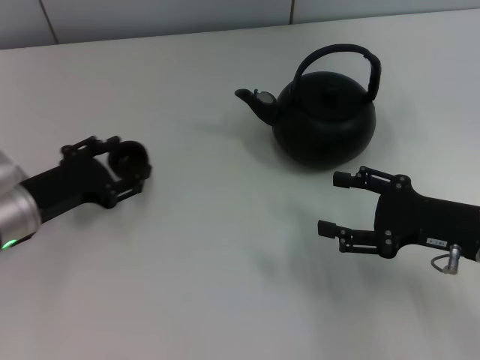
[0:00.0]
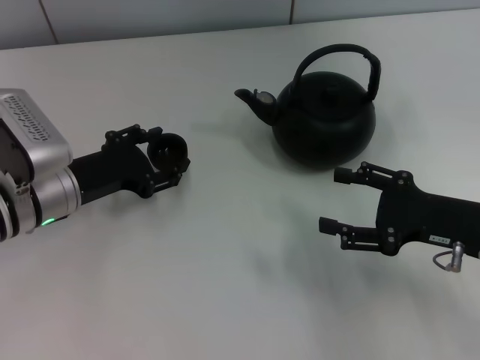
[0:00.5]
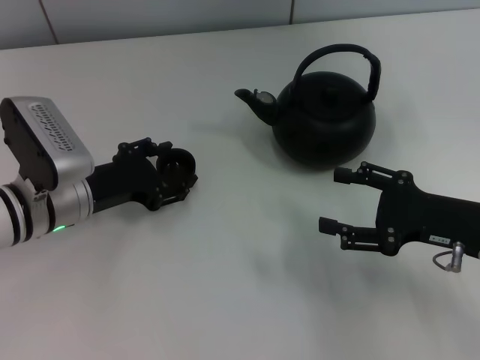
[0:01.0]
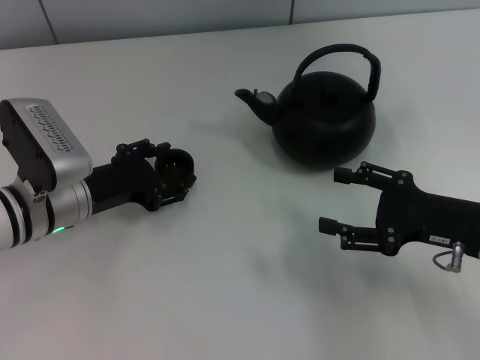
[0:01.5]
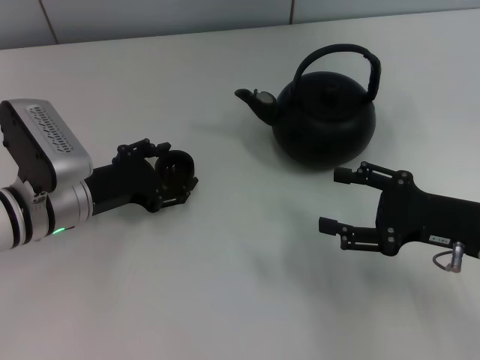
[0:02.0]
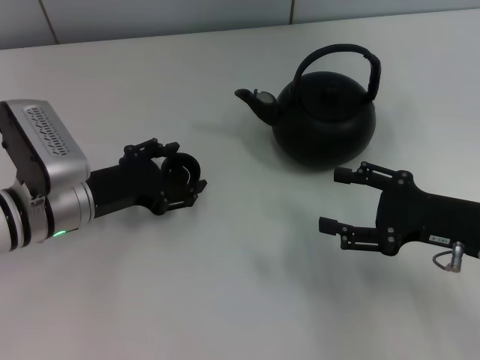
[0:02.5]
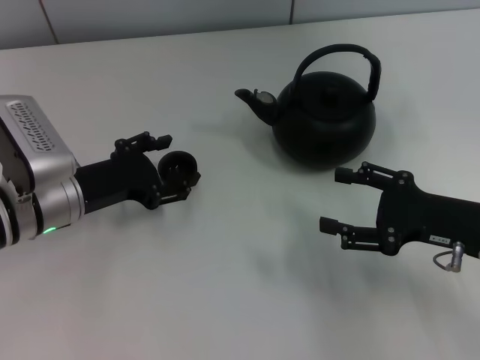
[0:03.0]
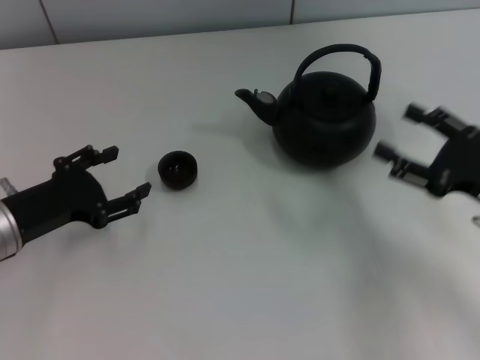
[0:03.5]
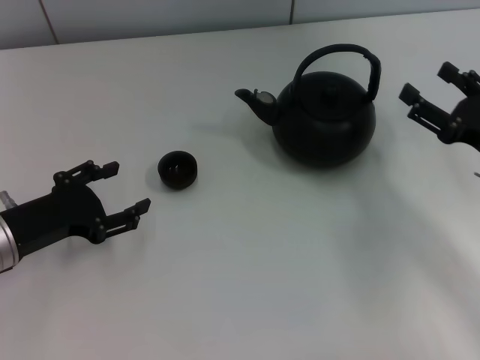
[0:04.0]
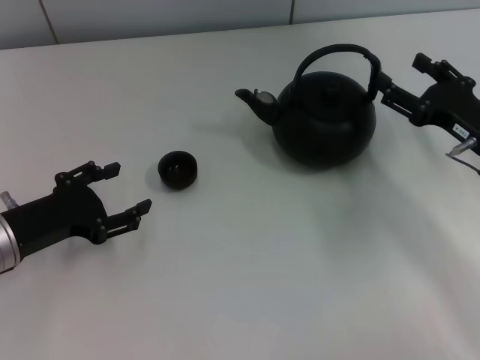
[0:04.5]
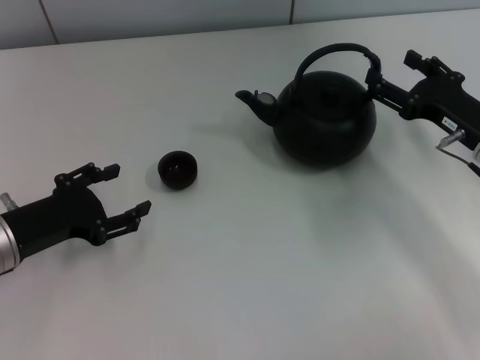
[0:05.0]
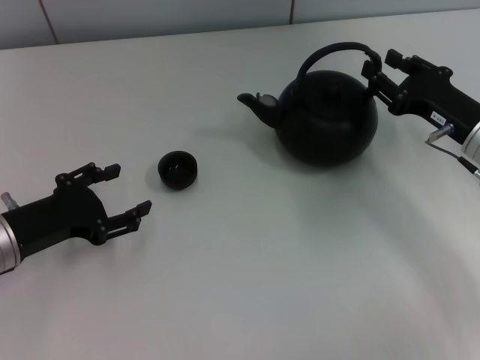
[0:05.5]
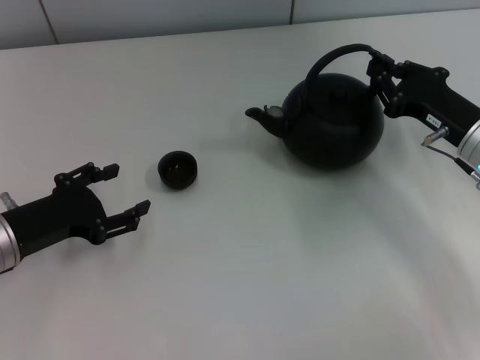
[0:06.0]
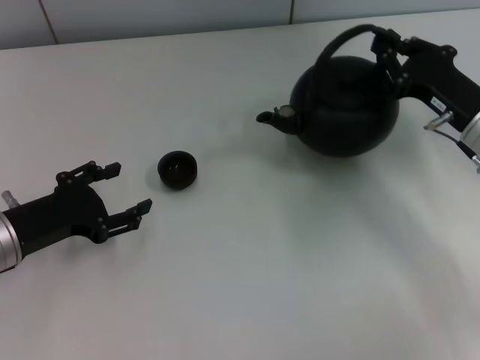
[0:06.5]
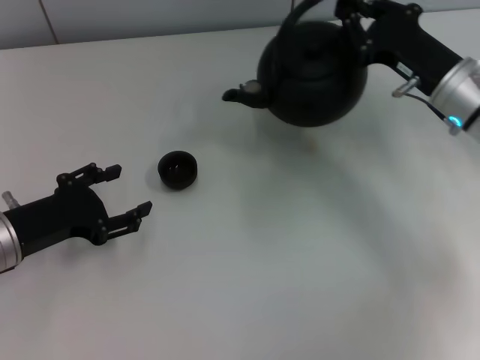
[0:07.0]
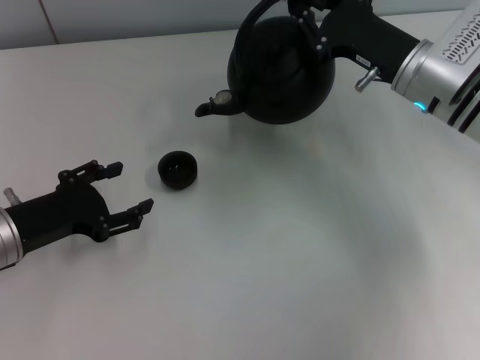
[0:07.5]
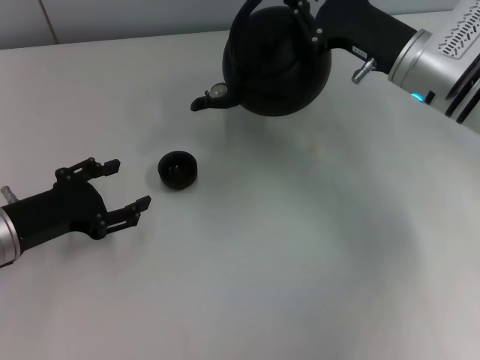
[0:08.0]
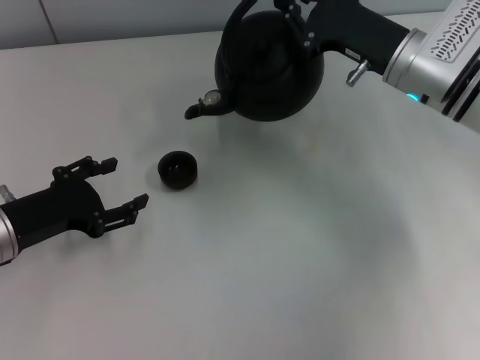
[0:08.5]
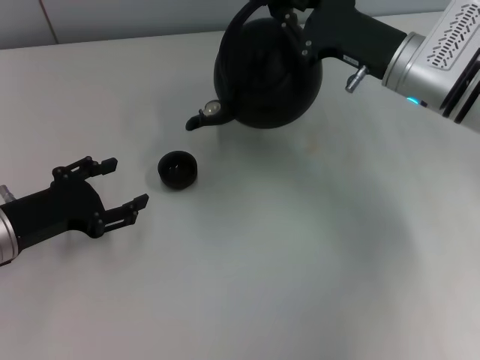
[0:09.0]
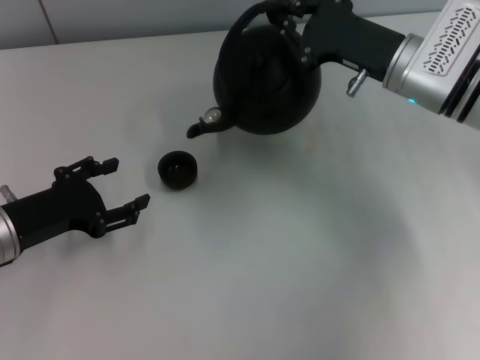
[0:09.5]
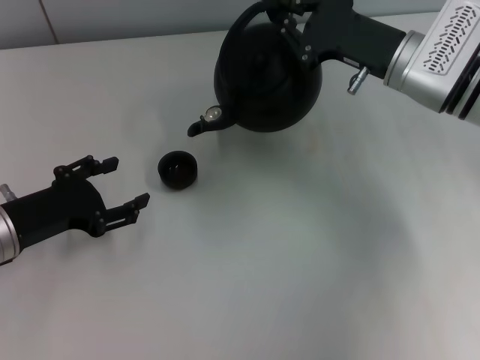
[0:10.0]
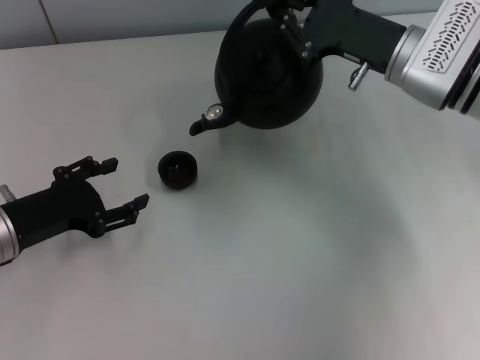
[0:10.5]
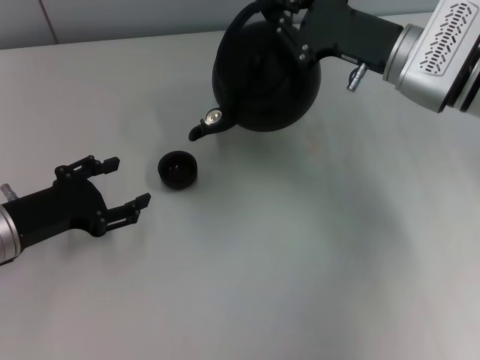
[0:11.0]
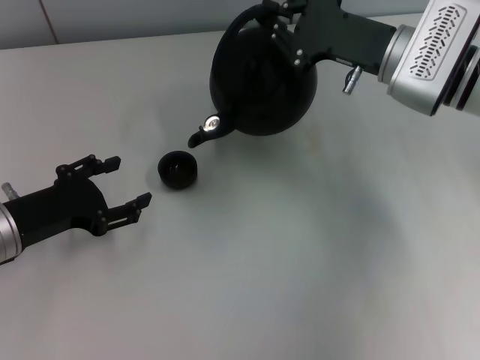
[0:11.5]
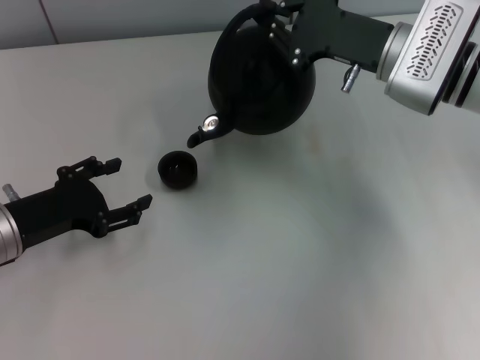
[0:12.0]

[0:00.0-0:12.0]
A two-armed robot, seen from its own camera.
Task of the whole recording: Grasp the handle of the teapot with one hand and pour tea into the teacup.
Step, 0:00.5 to 0:03.0: Place the teacup in the center of view with the left gripper.
Step, 0:03.5 to 0:07.0: Pick up the teapot with the right gripper.
0:00.0 to 0:02.0: The grippers move only a little.
0:02.0 to 0:04.0: The left gripper moves to the left and backward, roughly 10 cm.
0:04.0 to 0:06.0: The right gripper goes roughly 5 cm forward, and closes its fingers.
0:06.0 to 0:08.0: The right gripper heads to the left, forward and upward, covering roughly 10 cm.
0:08.0 to 0:12.0: The grippers move only a little.

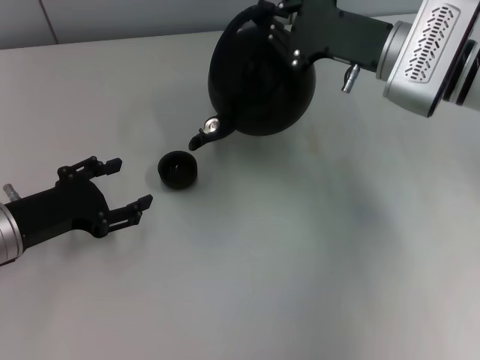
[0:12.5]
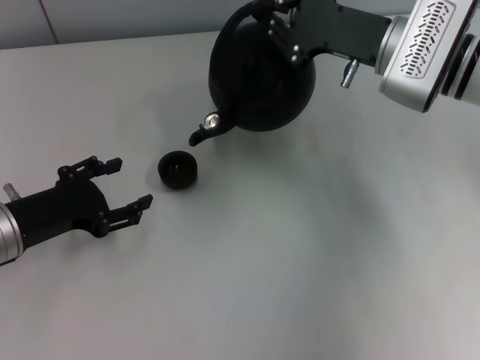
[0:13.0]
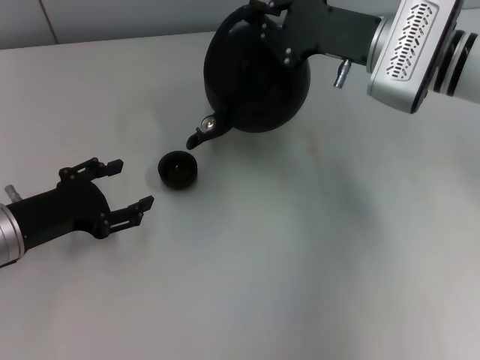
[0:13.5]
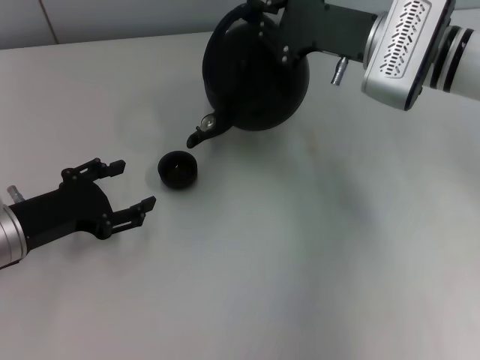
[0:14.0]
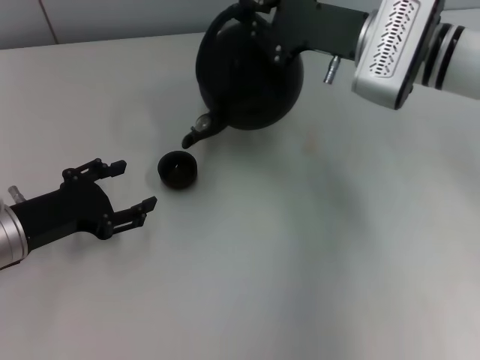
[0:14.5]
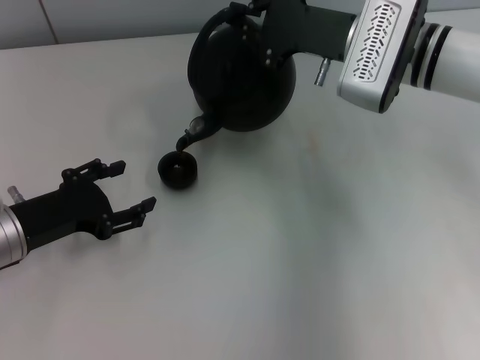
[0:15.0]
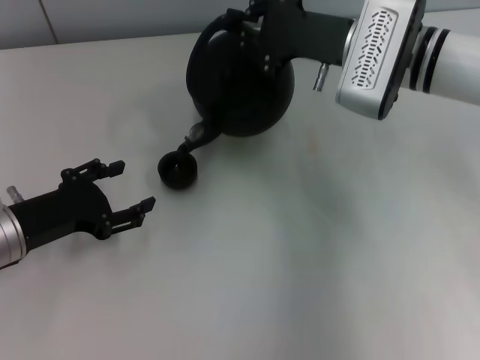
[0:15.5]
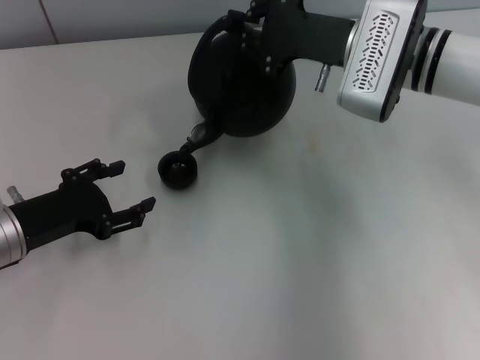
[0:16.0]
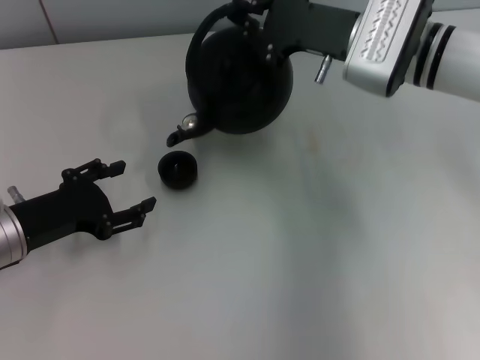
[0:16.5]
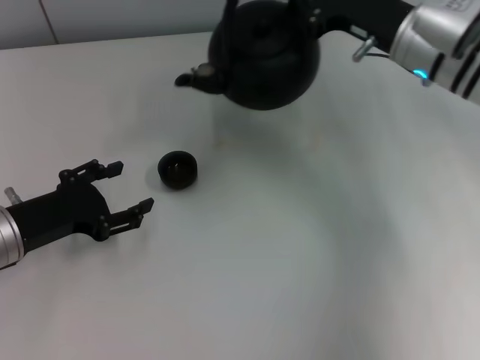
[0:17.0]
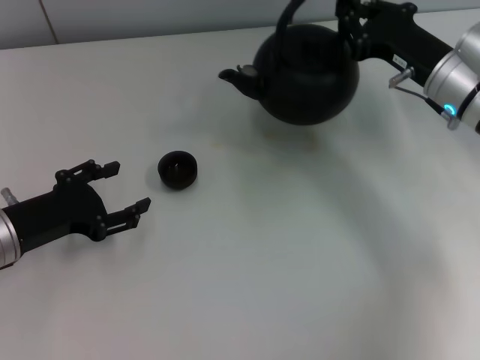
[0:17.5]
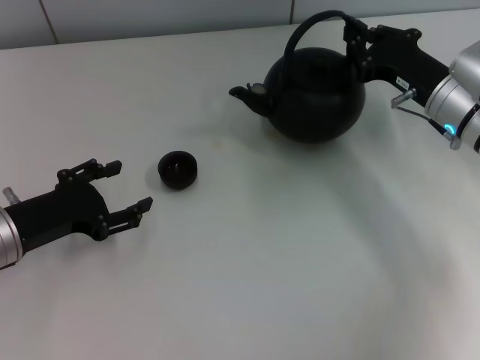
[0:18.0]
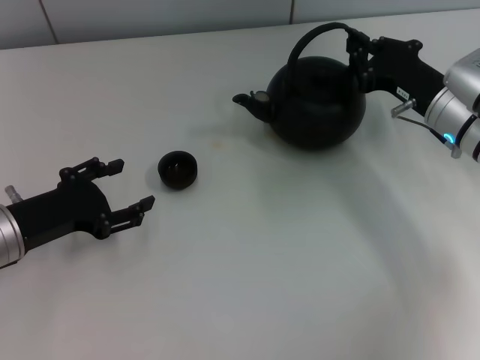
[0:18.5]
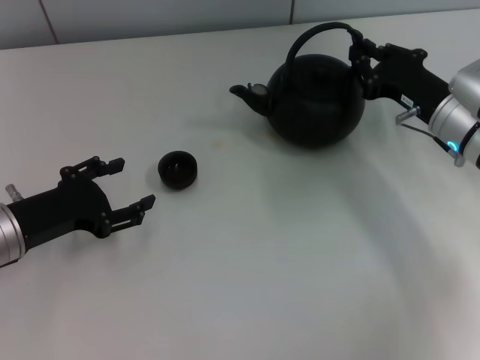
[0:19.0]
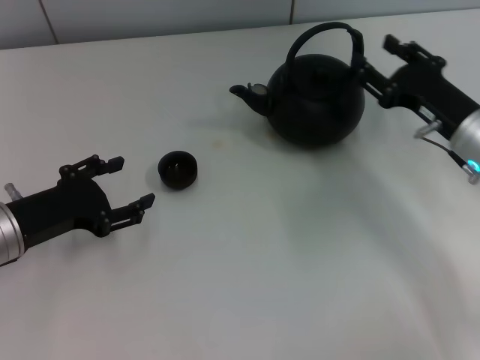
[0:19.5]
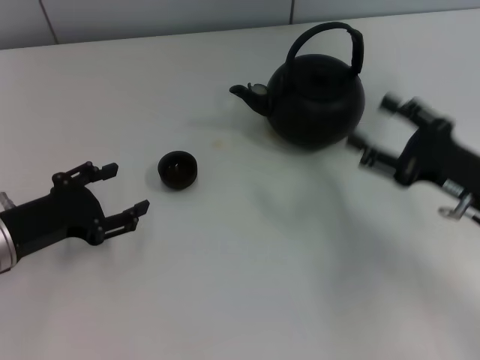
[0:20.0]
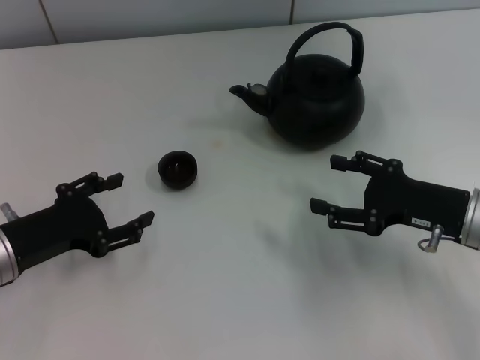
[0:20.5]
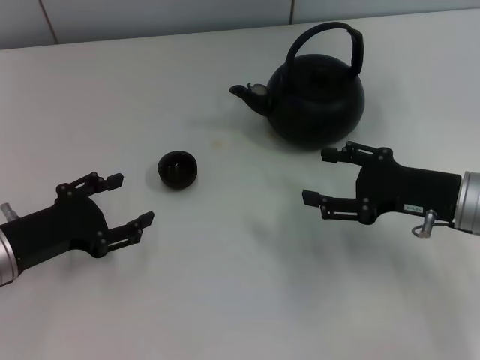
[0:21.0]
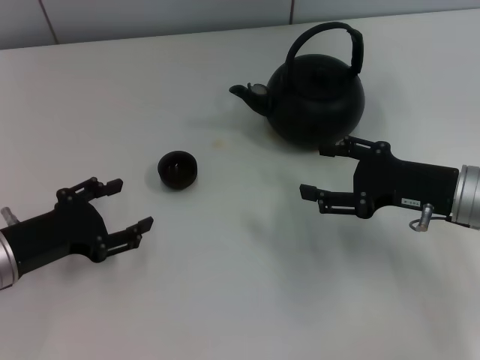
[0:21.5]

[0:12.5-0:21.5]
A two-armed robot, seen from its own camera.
Task of the whole recording: Grasp the handle of the teapot with one hand and pour tea into the teacup.
Step, 0:17.0 to 0:19.5: Put down the teapot with the right gripper.
0:12.5 to 0:14.5: The grippers stay close to where they were, moving slightly.
0:17.0 to 0:19.5: The right gripper shifts about 10 cm downward, backward and to the right, and opens.
0:19.5 to 0:21.5: The right gripper opens up.

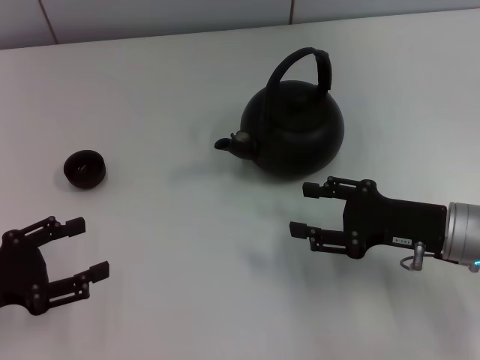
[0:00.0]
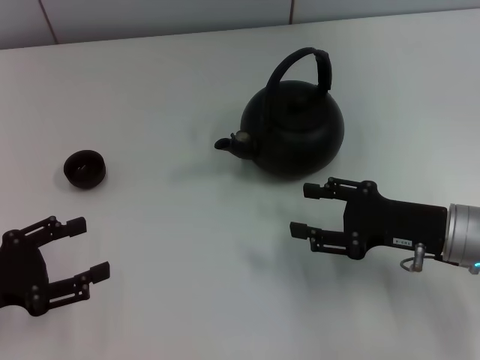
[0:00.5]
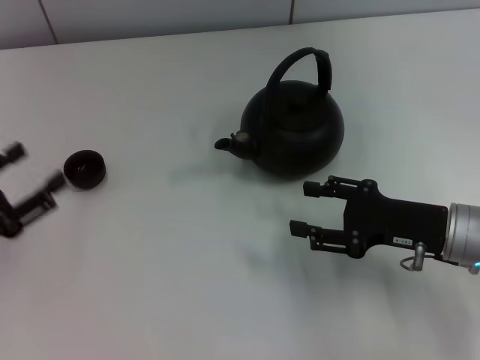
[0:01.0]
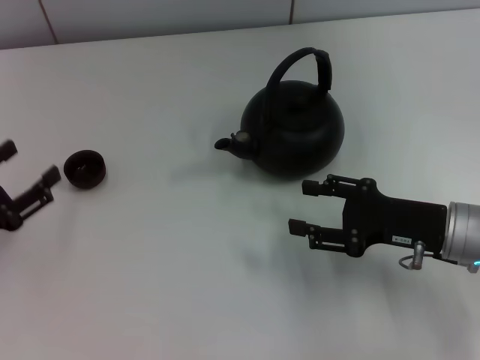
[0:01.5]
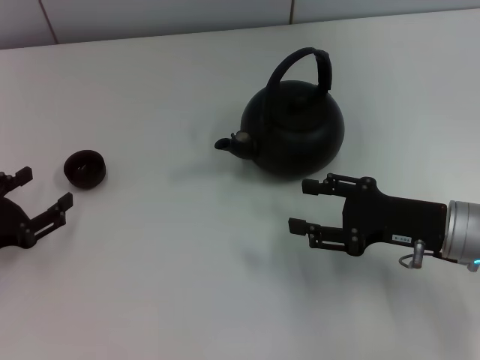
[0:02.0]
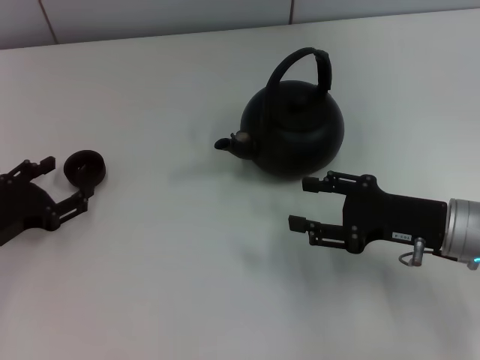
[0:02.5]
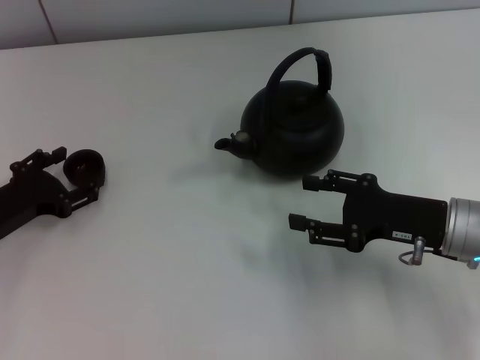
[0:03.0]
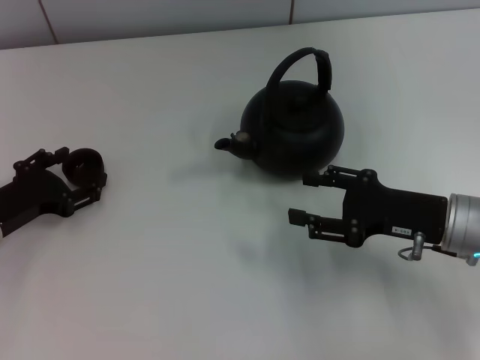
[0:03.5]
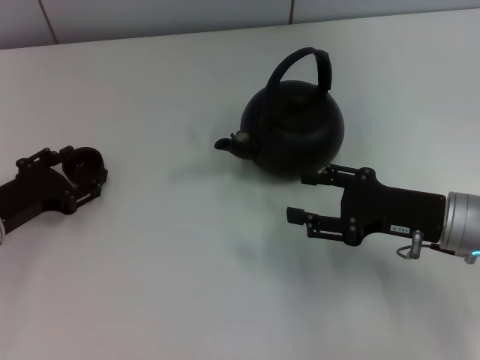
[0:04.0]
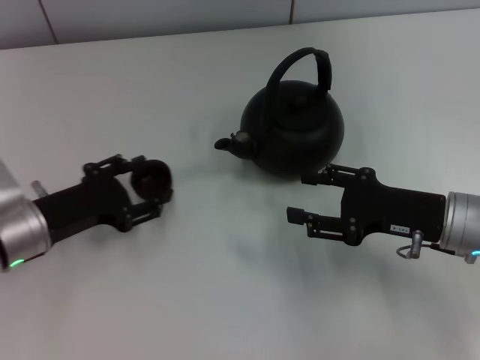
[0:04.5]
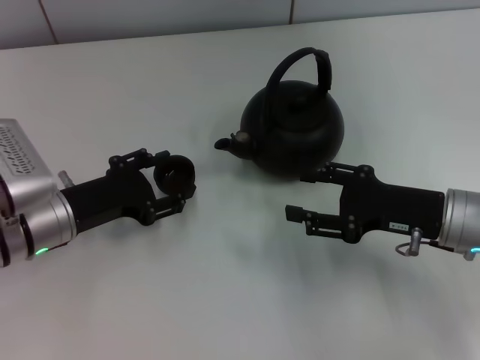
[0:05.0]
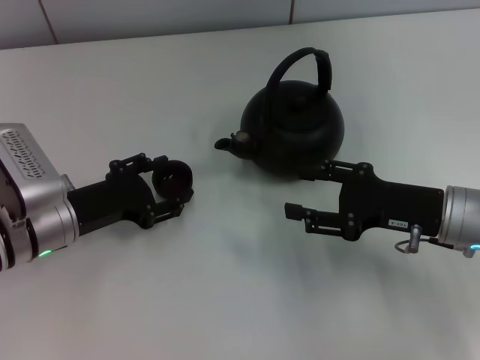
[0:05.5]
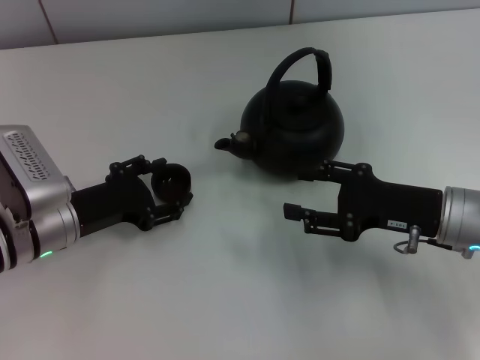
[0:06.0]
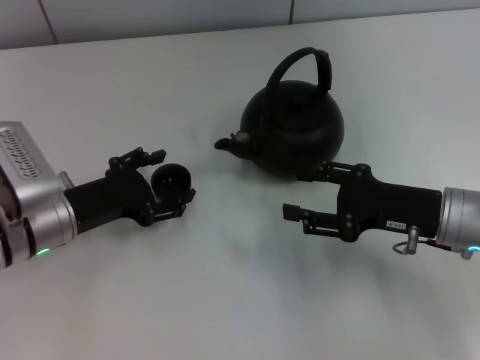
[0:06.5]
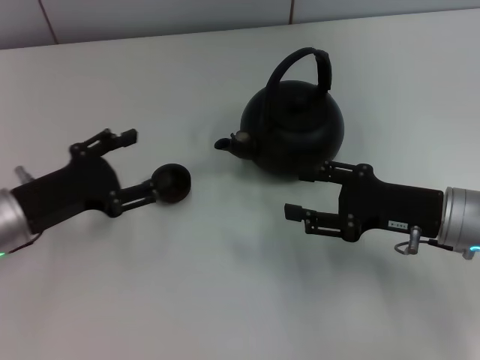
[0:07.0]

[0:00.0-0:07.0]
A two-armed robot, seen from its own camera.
Task of the whole recording: Grasp the handle of the teapot with one hand and pour tea into the teacup.
Step, 0:00.0 to 0:04.0: Pick up the teacup with the left gripper.
Step, 0:04.5 to 0:07.0: Place the teacup in the center of view with the left gripper.
0:02.0 to 0:03.5: The left gripper heads forward, covering about 5 cm.
0:03.5 to 0:05.0: The left gripper travels to the right by some 5 cm.
0:05.0 to 0:07.0: The left gripper opens.
